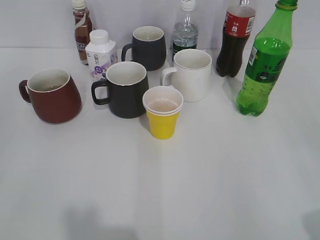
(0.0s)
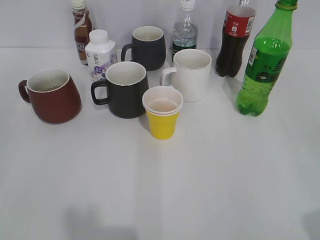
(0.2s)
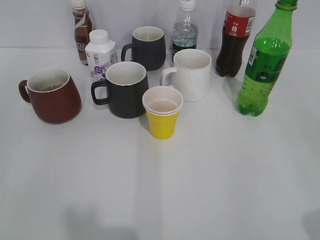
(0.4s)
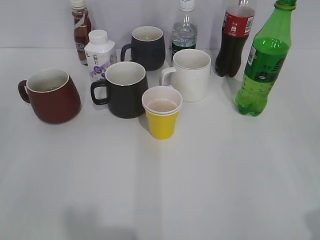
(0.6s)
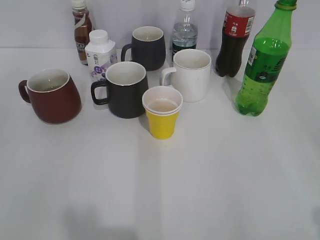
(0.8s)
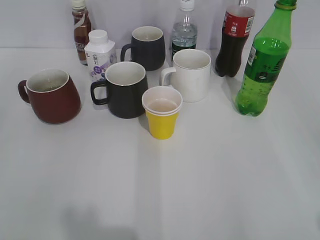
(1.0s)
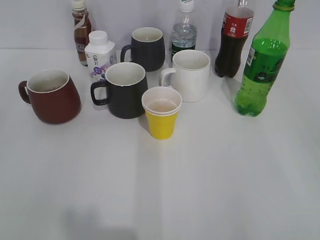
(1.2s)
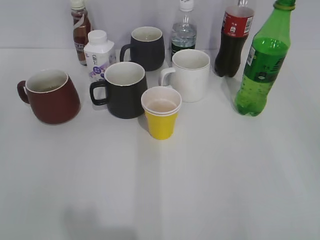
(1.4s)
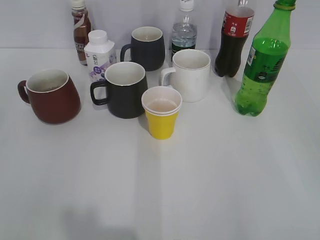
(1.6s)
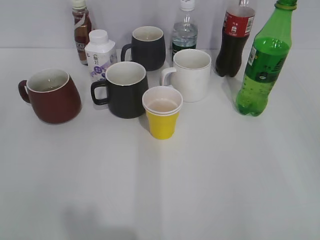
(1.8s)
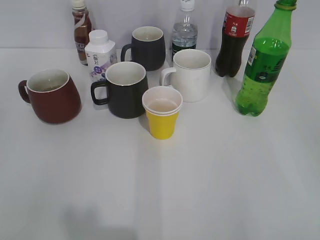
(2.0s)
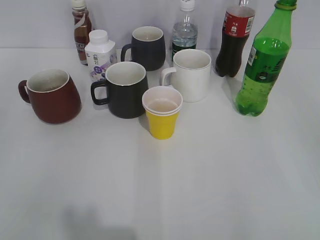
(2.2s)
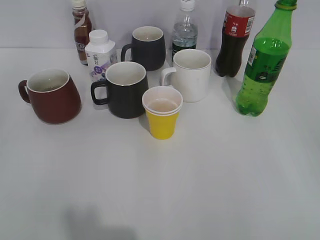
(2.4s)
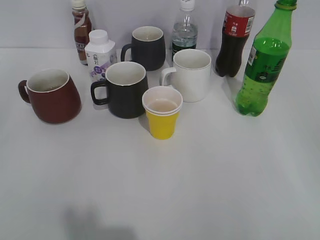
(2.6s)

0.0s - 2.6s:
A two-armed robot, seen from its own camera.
0.0s - 1.2s: There are only small adjustments of the grippers.
1.2s - 2.6s: Neither gripper changes place.

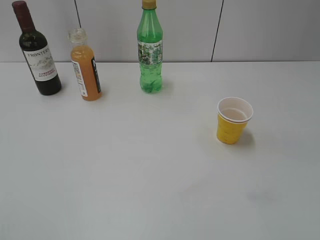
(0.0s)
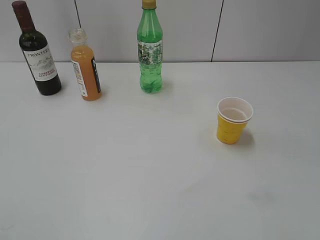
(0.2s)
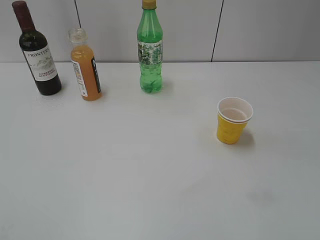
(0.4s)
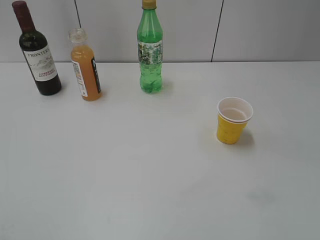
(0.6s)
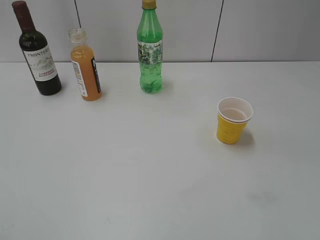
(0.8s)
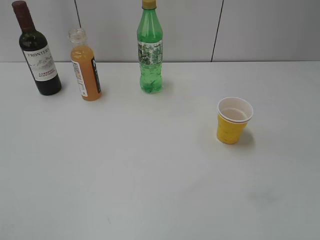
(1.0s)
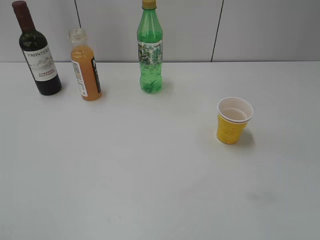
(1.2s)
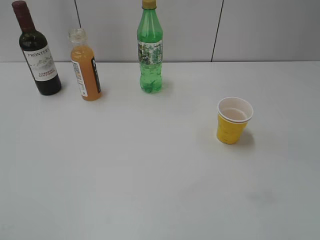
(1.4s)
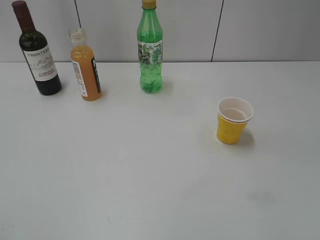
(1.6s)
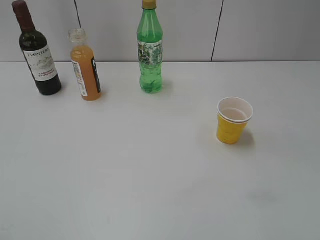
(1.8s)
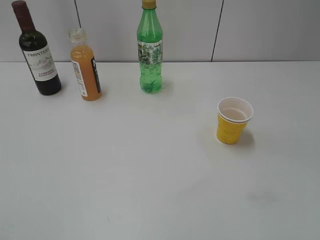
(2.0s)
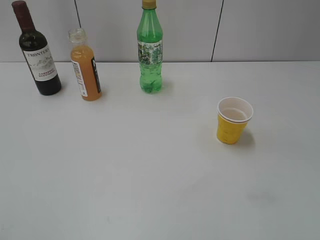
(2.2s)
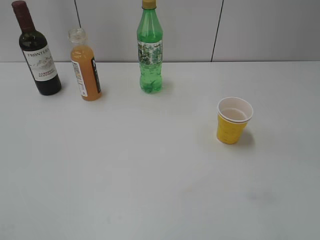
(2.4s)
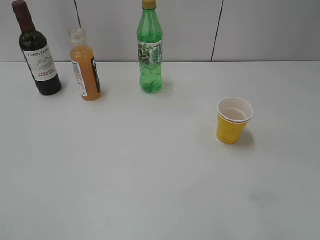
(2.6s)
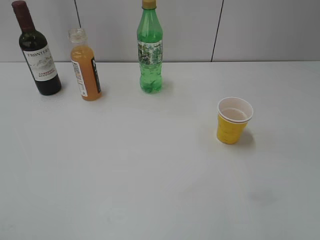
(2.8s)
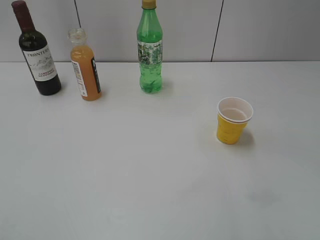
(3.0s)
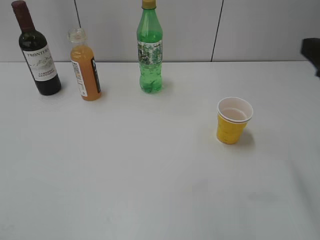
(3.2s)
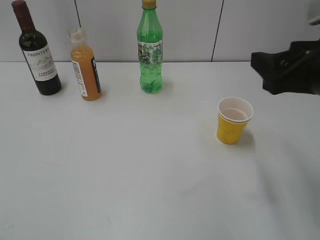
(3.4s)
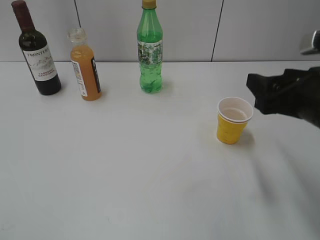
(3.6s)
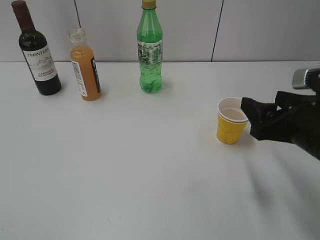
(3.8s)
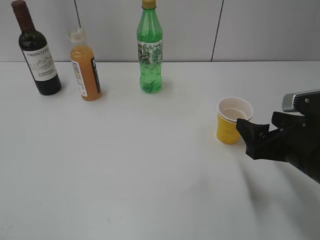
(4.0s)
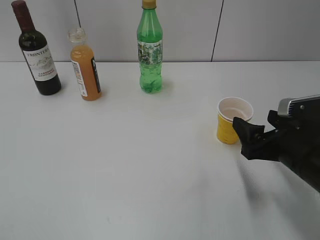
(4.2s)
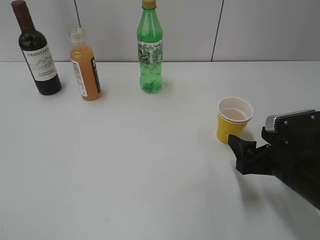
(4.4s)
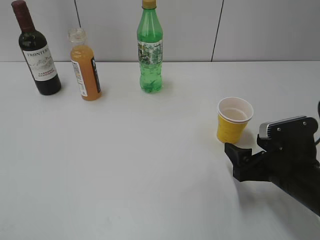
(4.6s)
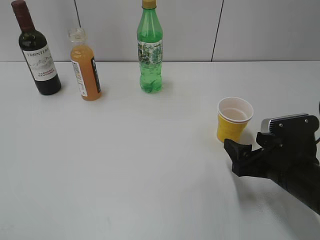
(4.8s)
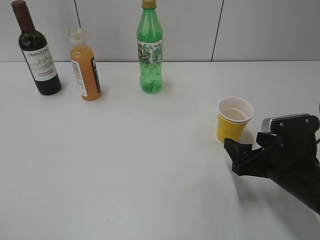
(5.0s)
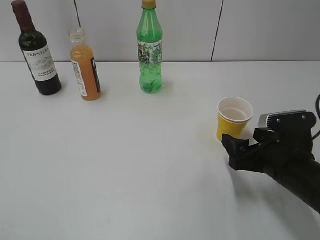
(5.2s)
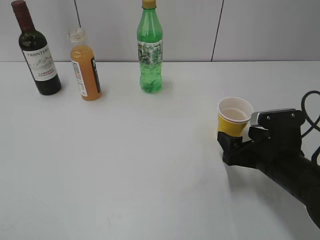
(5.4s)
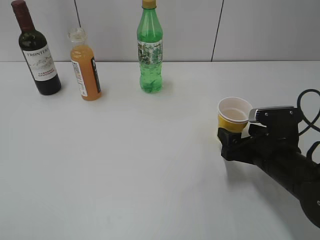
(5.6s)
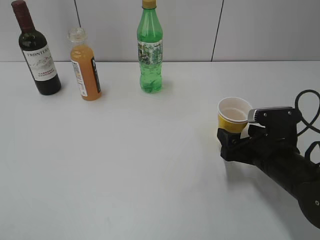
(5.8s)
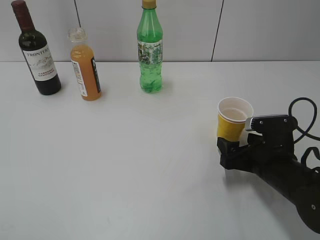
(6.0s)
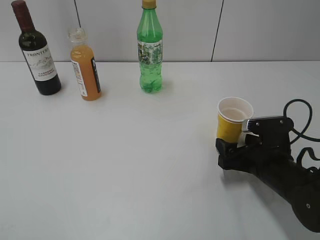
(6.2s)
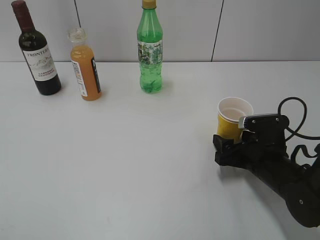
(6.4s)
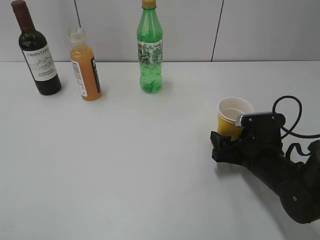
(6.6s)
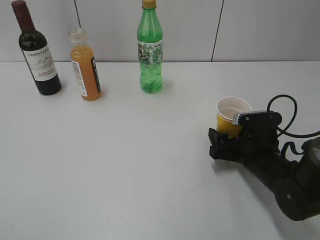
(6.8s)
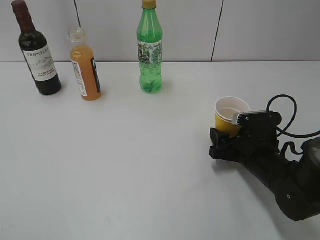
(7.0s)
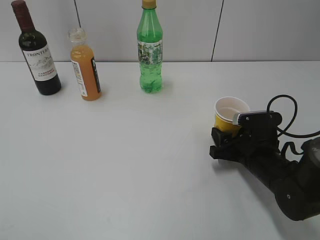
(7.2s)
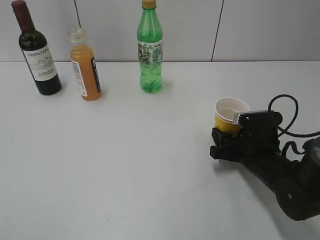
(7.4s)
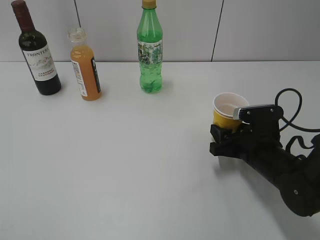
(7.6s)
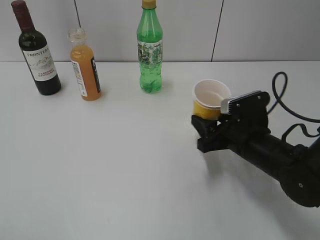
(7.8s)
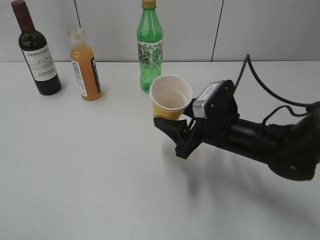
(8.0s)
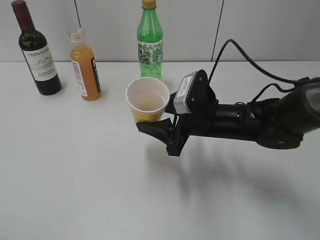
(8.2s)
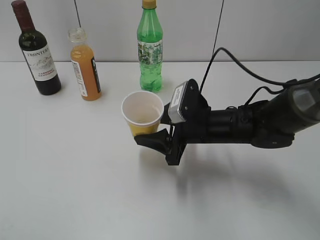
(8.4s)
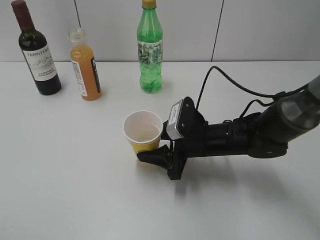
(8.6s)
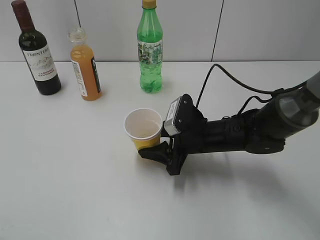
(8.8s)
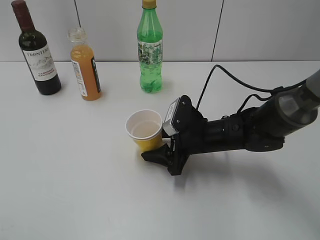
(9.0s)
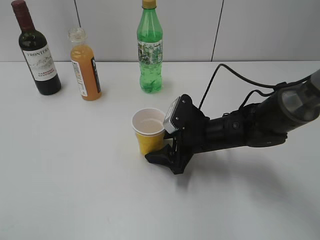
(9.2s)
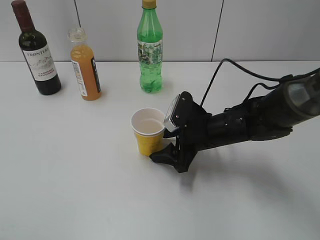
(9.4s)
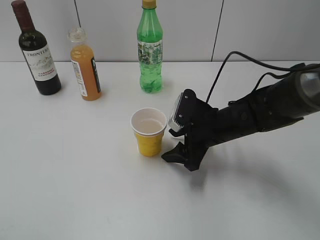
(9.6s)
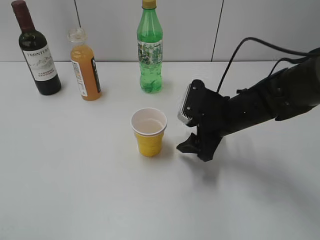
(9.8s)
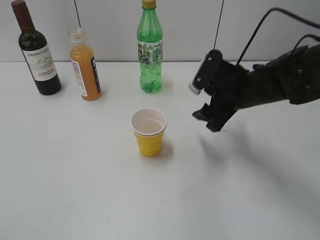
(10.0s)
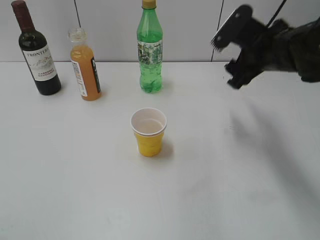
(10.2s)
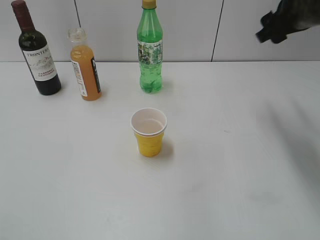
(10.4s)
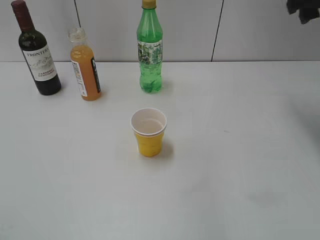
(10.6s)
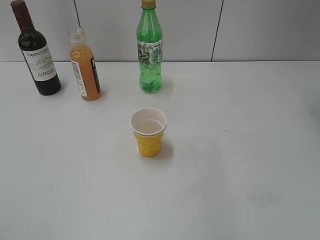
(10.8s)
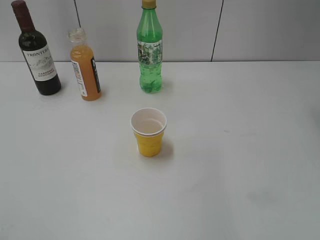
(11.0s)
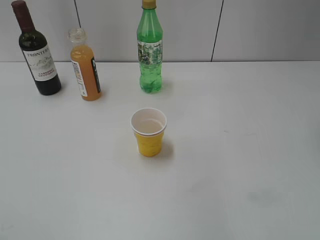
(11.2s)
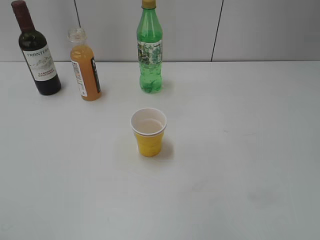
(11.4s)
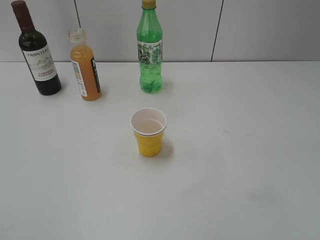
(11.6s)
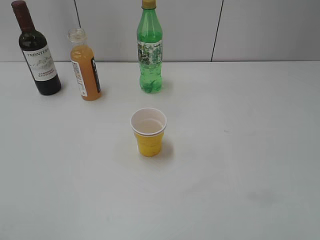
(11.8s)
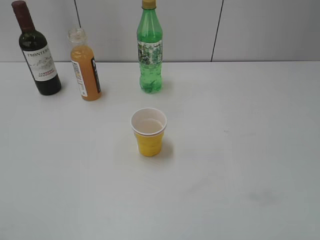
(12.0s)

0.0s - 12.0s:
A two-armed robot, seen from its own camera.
Step, 3.2s - 7.2s: Grasp the yellow paper cup with right gripper.
Step, 7.6s - 9.6s: Place the yellow paper cup on the table with right gripper.
3.0s - 4.4s: The right gripper moves downward, about 20 cm, and opens up.
4.4s - 6.0s: The right gripper moves some 5 cm.
6.0s - 7.6s: The right gripper closes.
7.6s - 9.0s: The right gripper heads to the left, covering some 10 cm.
9.0s - 10.4s: The right gripper shifts approximately 25 cm upward and to the right.
10.4s - 12.0s: The right gripper shifts roughly 30 cm backward.

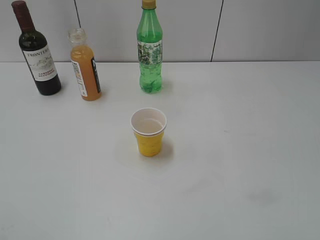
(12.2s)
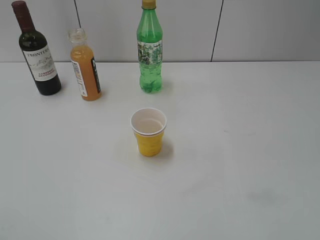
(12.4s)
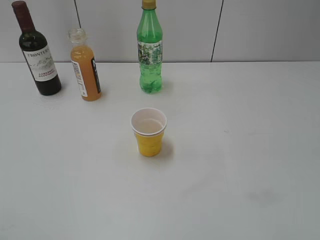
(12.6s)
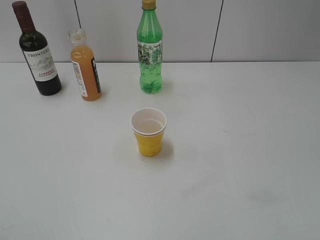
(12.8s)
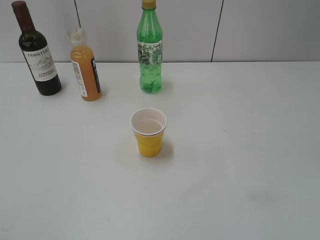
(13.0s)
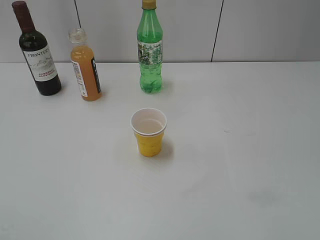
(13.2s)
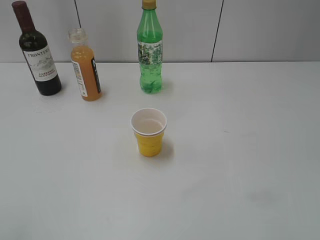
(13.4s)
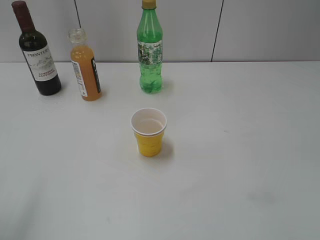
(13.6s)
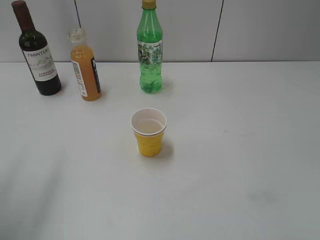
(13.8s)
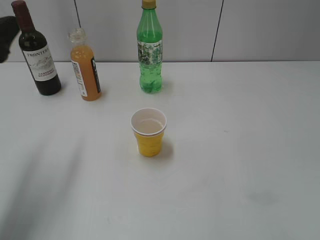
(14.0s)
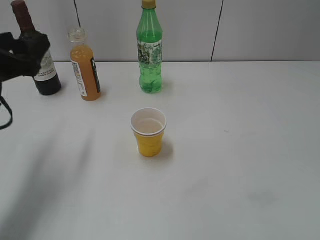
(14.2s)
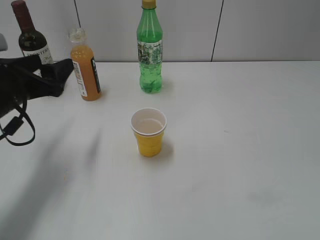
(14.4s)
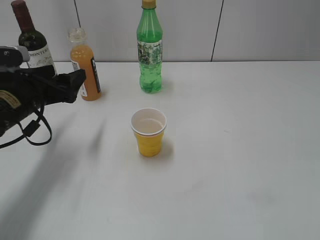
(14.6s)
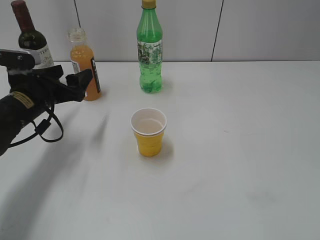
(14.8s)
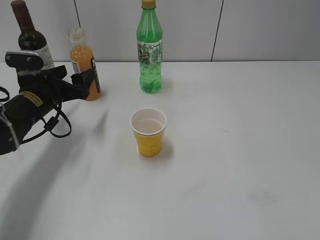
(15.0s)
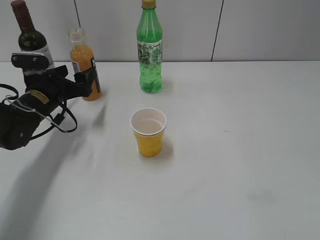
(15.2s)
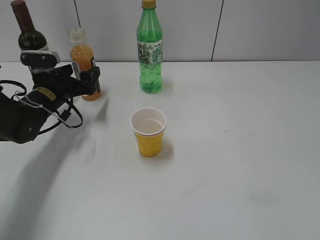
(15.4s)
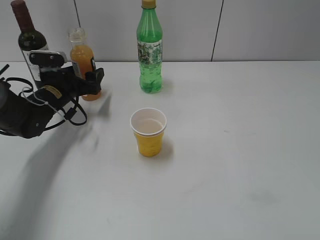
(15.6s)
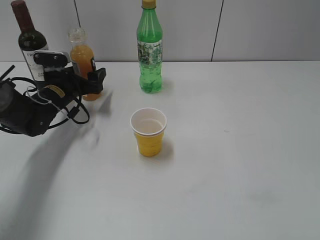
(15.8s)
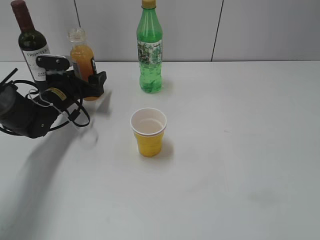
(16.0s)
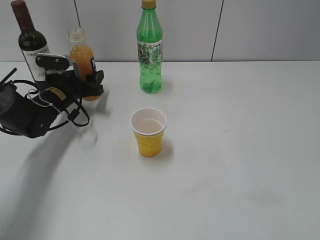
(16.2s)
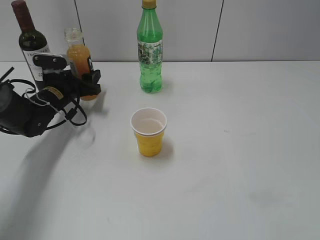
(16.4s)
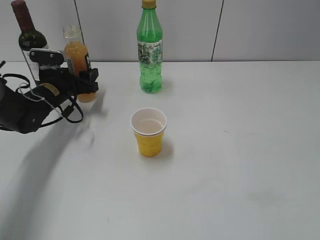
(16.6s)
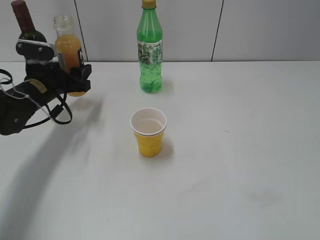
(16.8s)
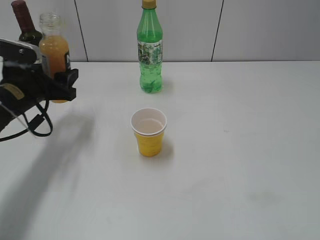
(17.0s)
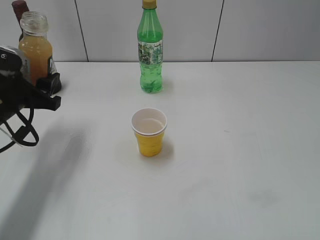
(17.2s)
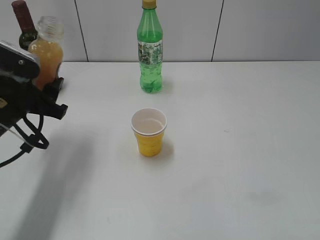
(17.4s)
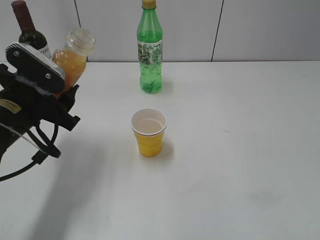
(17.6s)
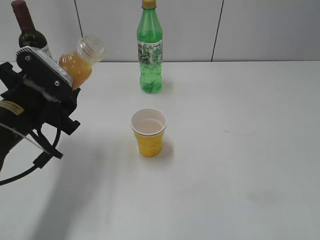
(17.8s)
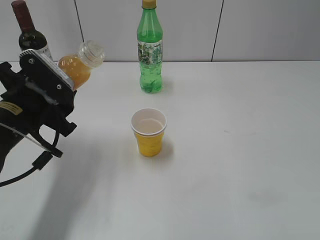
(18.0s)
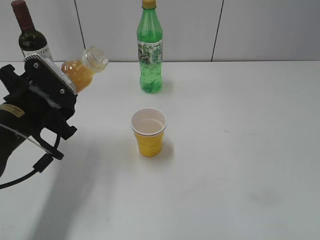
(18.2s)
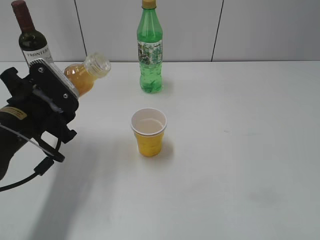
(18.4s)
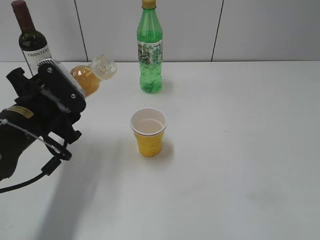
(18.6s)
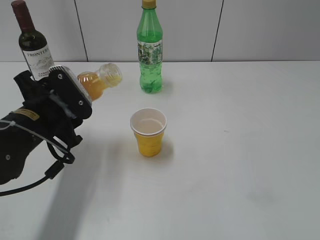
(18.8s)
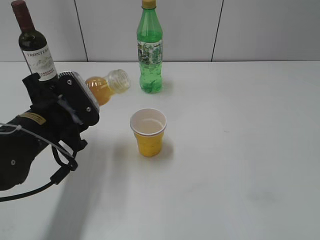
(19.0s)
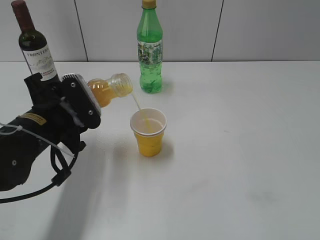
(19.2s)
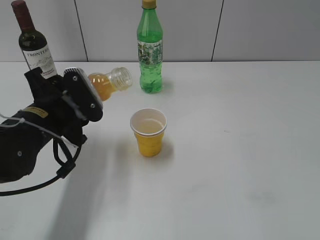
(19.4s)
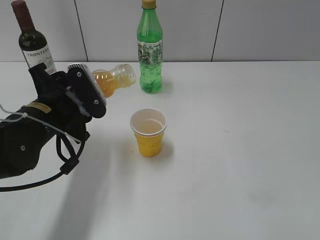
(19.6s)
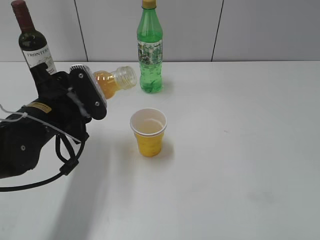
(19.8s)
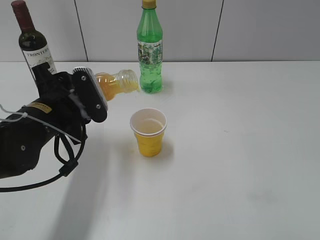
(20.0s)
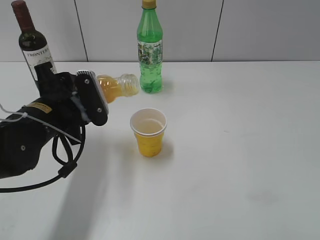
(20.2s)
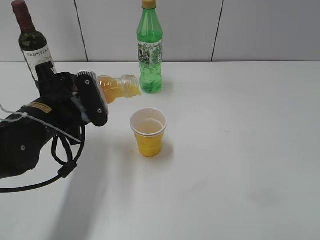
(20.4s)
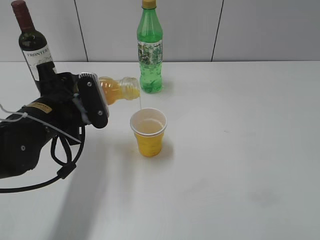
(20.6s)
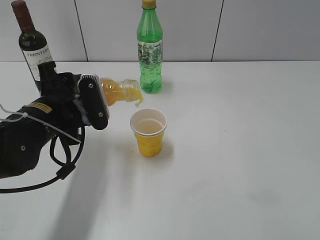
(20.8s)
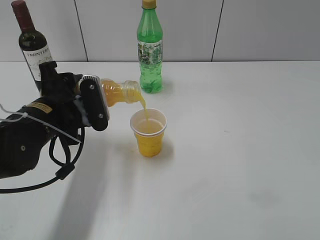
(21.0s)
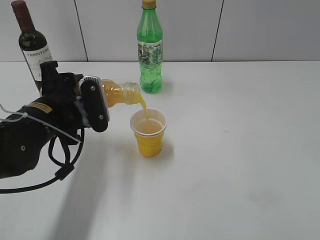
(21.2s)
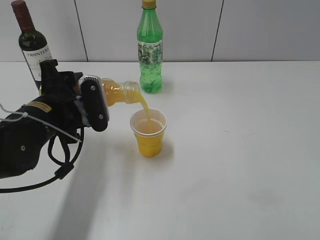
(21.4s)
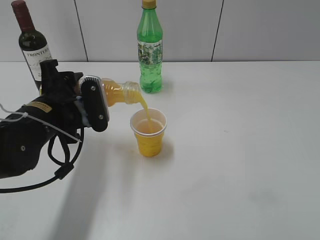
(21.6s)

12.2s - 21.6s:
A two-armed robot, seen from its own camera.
Step, 12.2s - 16.2s: Grasp the bottle with orange juice with left gripper.
12.2s - 13.8s: The left gripper heads forward, covering roughly 20 cm.
13.8s - 15.4s: The left gripper shifts roughly 30 cm downward and forward.
15.4s - 17.0s: The left gripper is displaced backward and upward by approximately 5 cm, and closes up.
17.0s - 18.4s: The left gripper shifts approximately 10 cm backward.
18.4s - 20.0s: There are only small adjustments of the grippers.
20.0s - 21.6s: The grippers move only a little.
